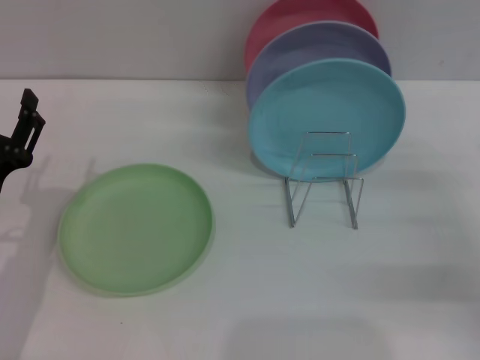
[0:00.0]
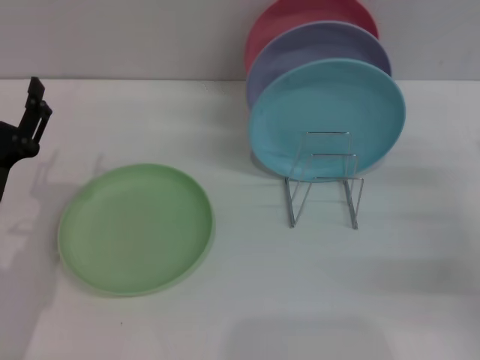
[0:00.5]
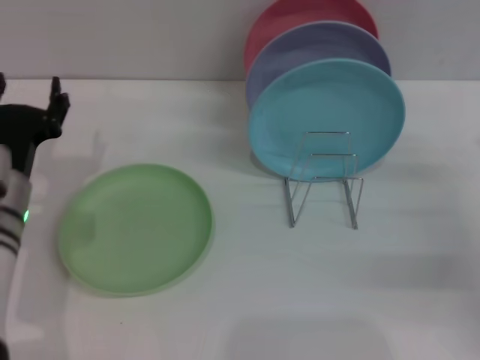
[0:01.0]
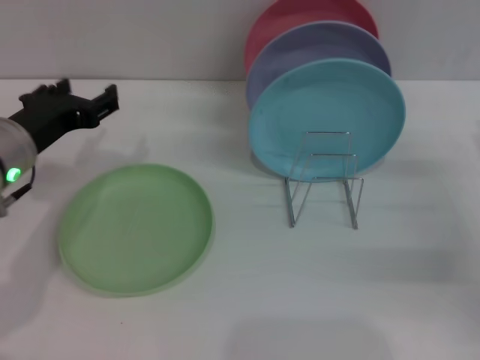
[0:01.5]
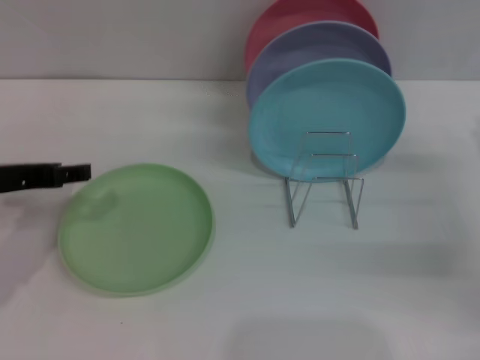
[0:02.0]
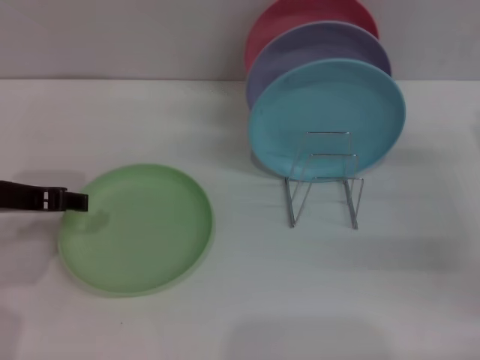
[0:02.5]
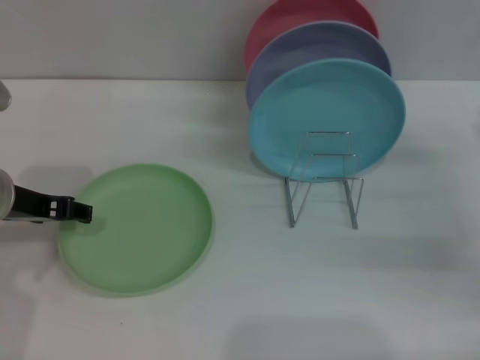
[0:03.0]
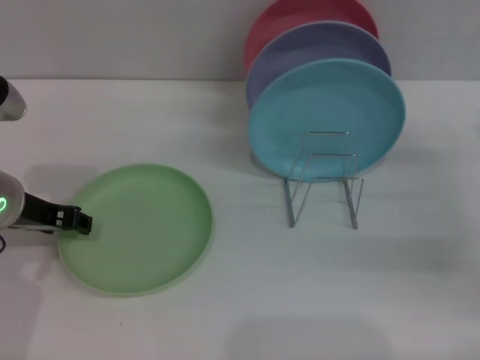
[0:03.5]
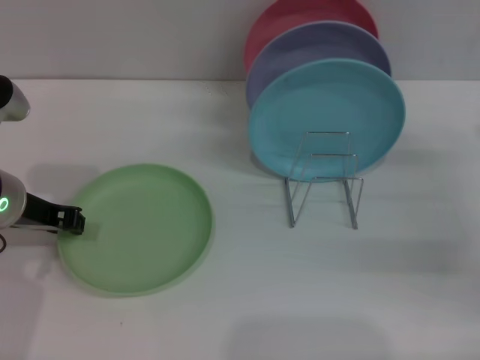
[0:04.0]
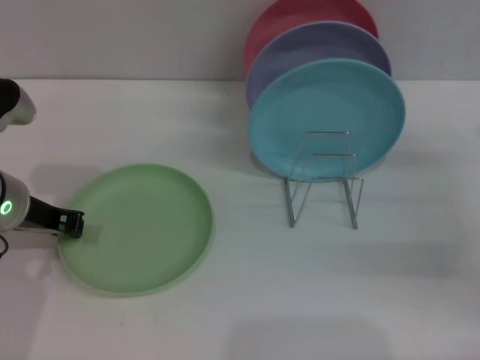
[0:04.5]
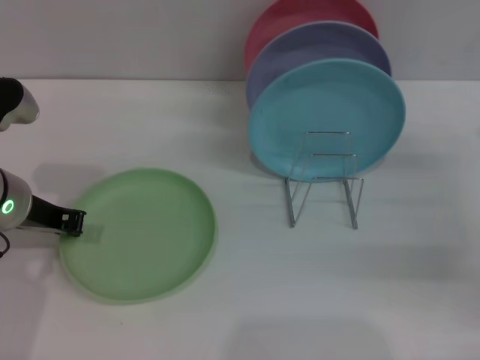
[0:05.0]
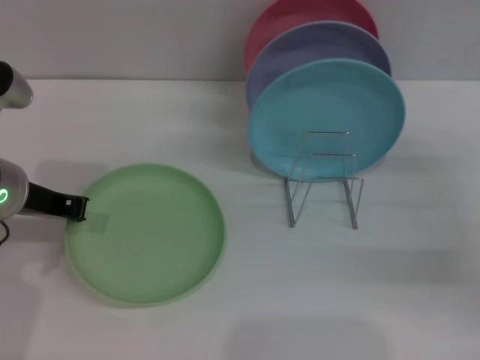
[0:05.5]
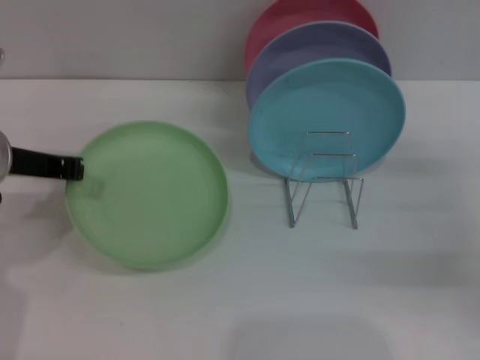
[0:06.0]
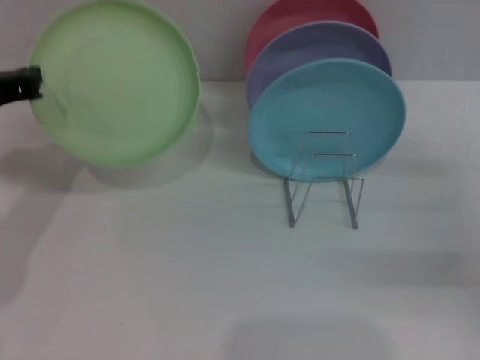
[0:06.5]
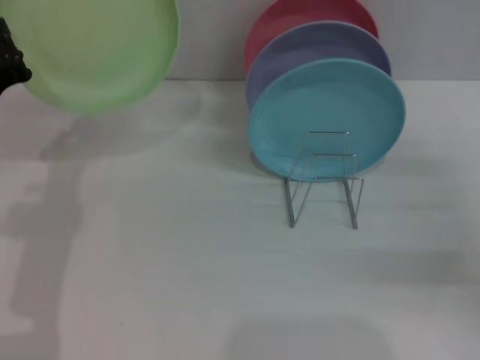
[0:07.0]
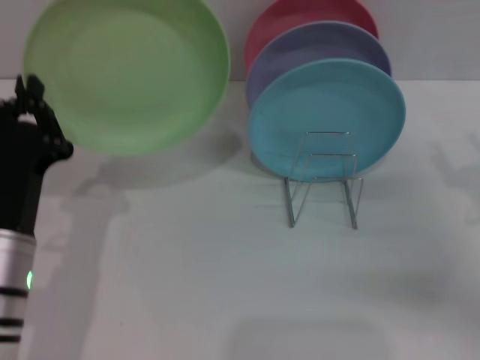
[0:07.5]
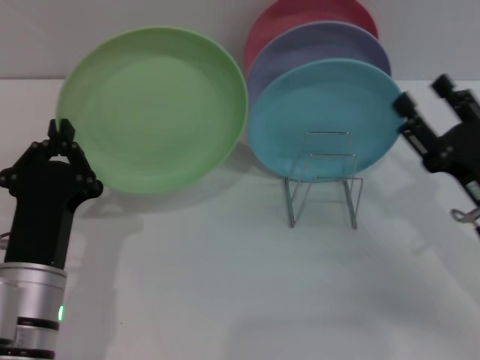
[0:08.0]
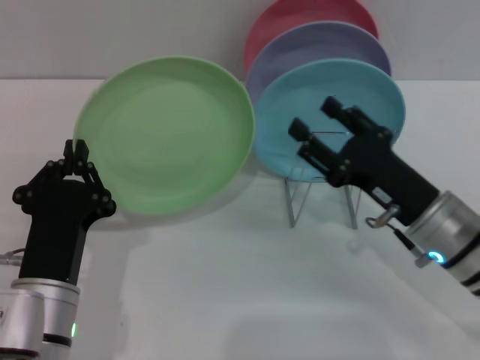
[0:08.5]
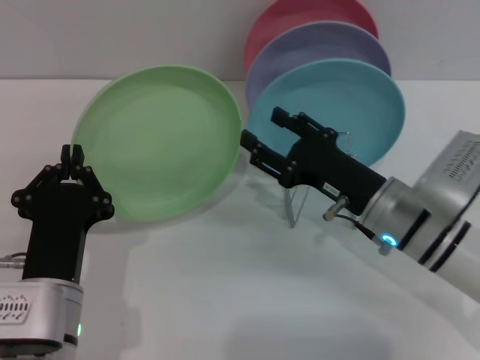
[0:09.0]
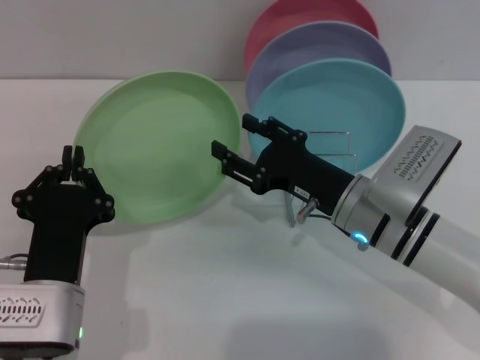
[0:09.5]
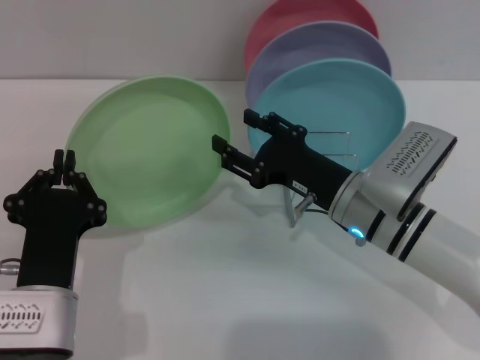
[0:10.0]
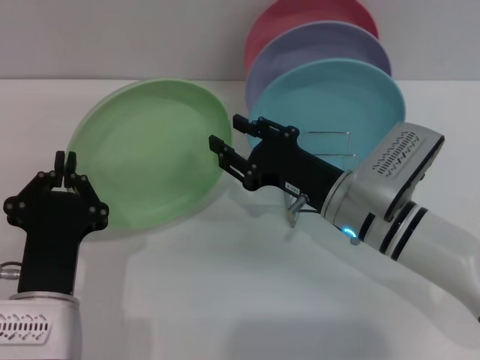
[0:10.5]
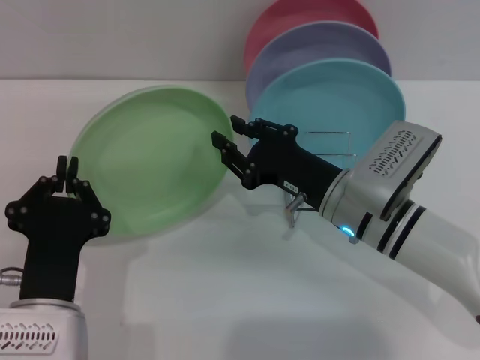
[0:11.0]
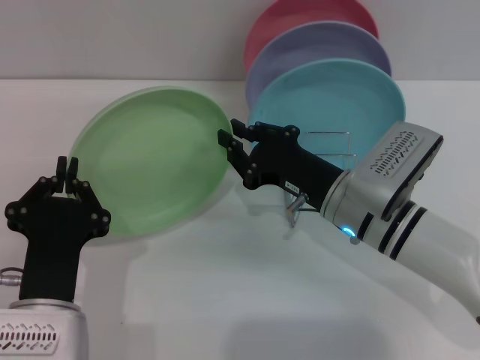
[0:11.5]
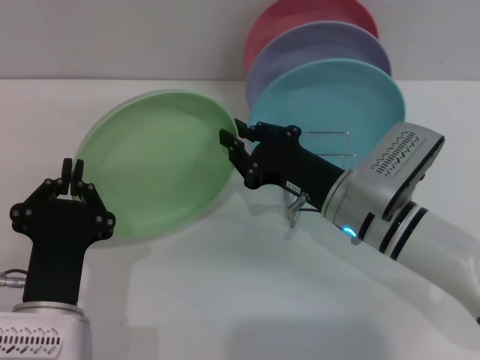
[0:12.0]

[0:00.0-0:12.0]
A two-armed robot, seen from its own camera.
Task of the whole recording: Grip the plate with one hand, pass it to the other, then set it on the shelf.
Step, 0:00.0 to 0:06.0: Pick up the plate with the left gripper.
0:00.0 to 0:02.0: The left gripper moves upward, roughly 10 cm.
0:02.0 to 0:04.0: The left gripper moves about 5 cm, and closes its fingers.
0:04.0 to 0:06.0: The left gripper closes its fingers.
0:06.0 to 0:08.0: The left gripper moves backward, downward and to the right, some 20 cm. Meanwhile the right gripper is displaced to the left by some 10 cm.
0:08.0 to 0:10.0: The right gripper travels to the left and forward by about 15 cm.
0:10.0 to 0:12.0: The right gripper closes its fingers.

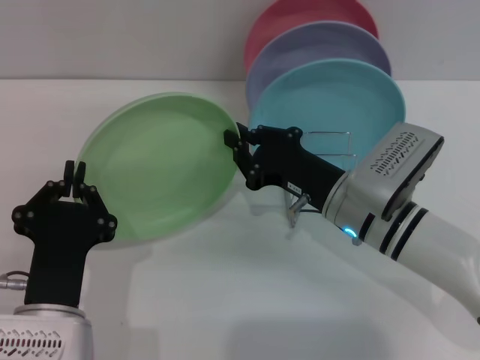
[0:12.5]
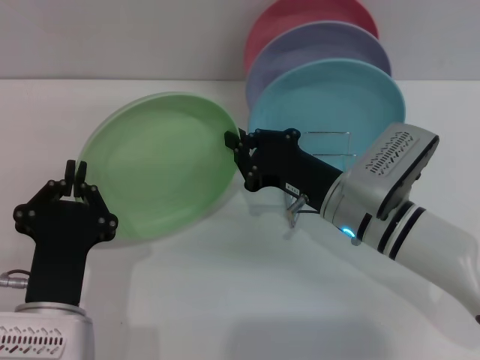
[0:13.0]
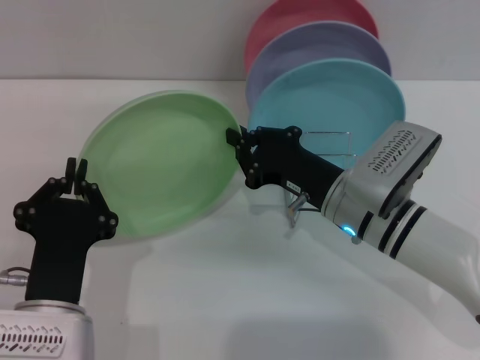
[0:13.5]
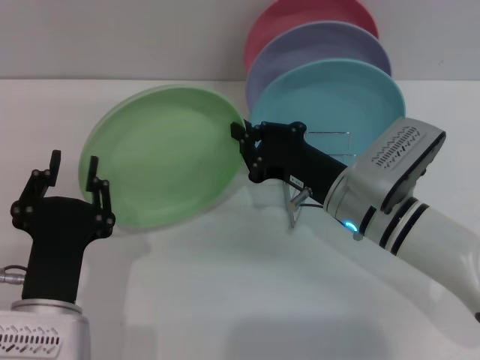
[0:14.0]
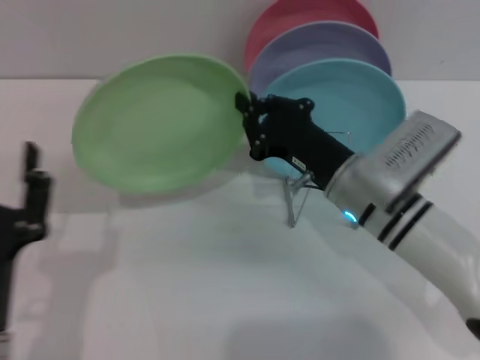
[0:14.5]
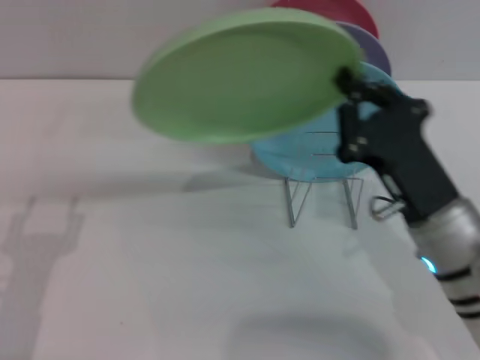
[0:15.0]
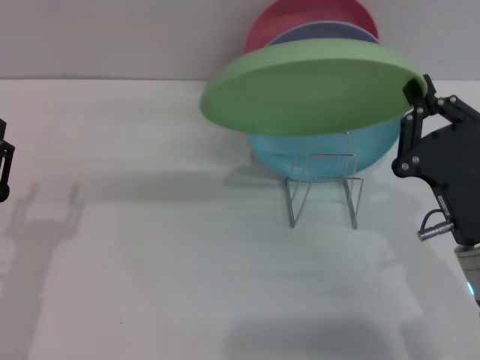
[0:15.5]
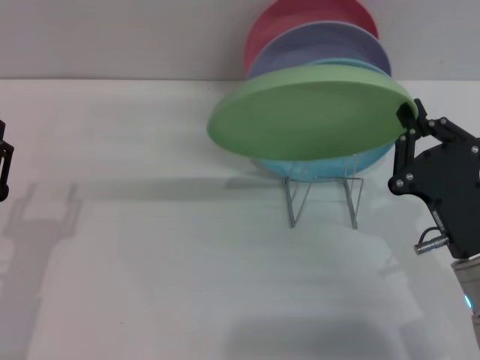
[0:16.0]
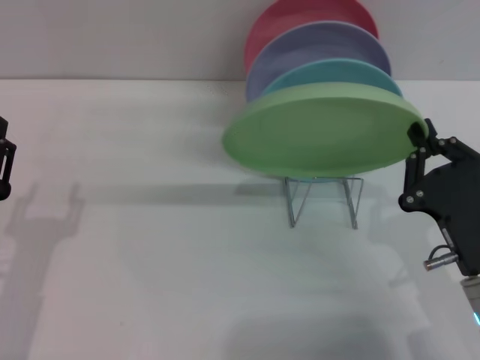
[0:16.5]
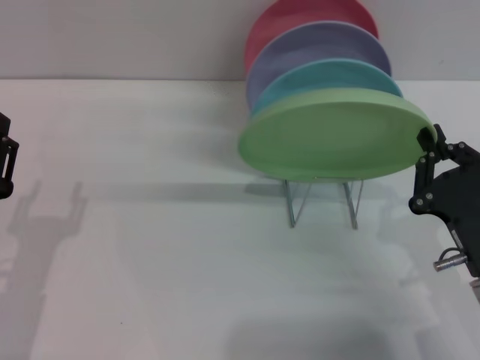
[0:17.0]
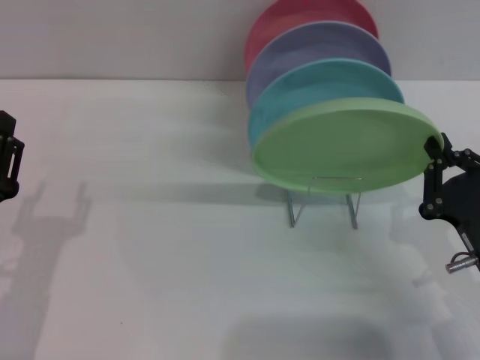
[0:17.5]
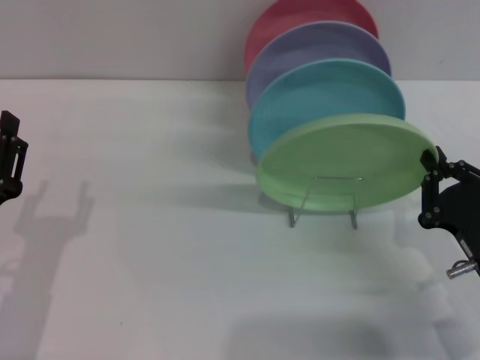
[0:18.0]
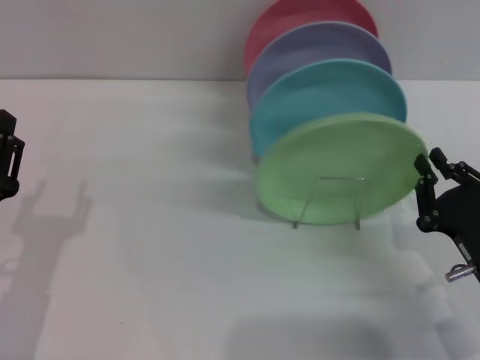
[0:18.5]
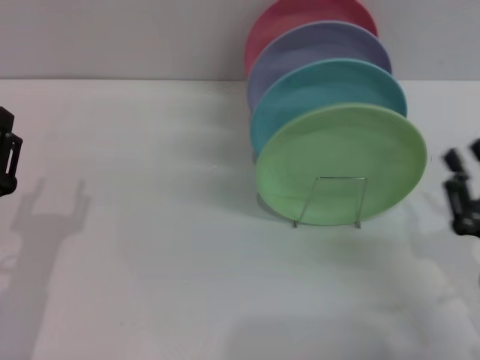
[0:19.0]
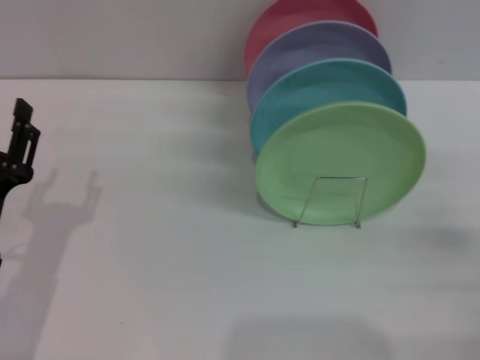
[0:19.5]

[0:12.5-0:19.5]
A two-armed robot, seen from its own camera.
Task of the whole recording: Grip the plate with one hand, pass it to the other, then set it on the shelf.
Step, 0:14.5 to 0:18.5: Place the plate on the shelf with the right gripper.
0:12.5 to 0:14.5: The left gripper moves approximately 5 cm, and opens its fingers.
0:14.5 to 0:16.0: The left gripper shifts approximately 10 cm to the left and forward. The right gripper travels backward and to the right by approximately 15 cm.
0:16.0 to 0:17.5: The grippers make only small movements.
0:17.5 to 0:19.5: The right gripper heads to the right, covering about 10 cm, and opens its fingers.

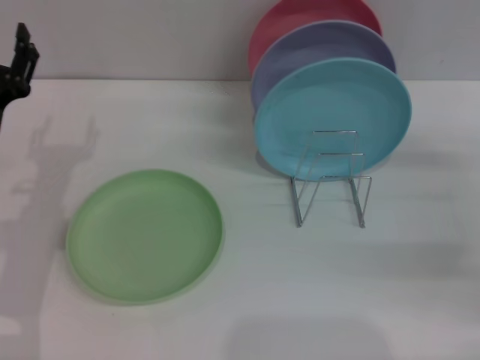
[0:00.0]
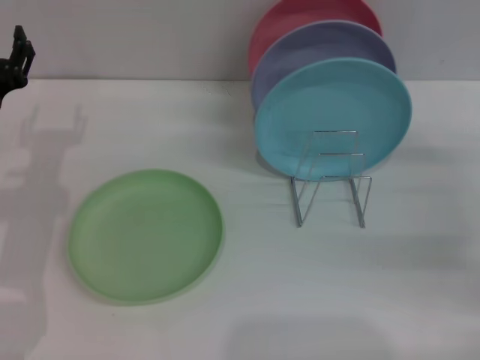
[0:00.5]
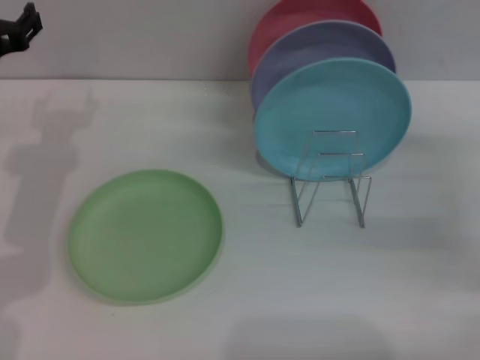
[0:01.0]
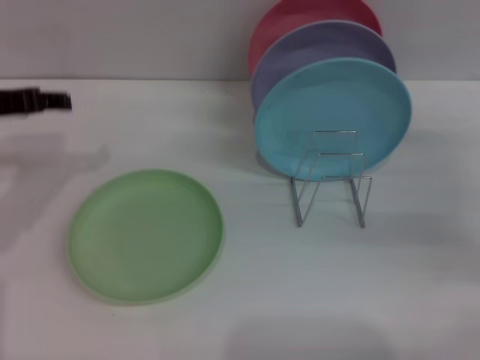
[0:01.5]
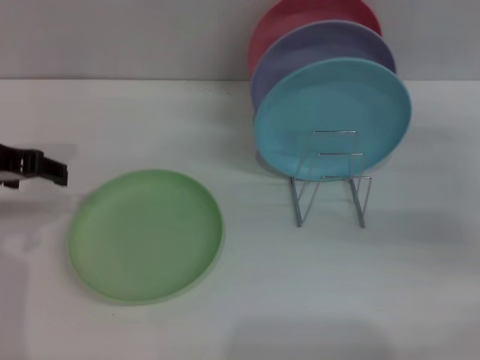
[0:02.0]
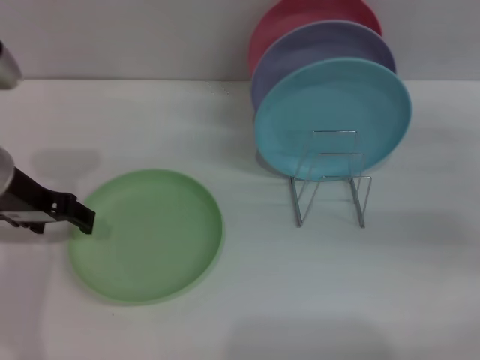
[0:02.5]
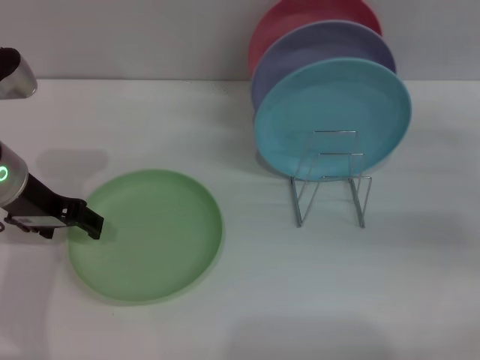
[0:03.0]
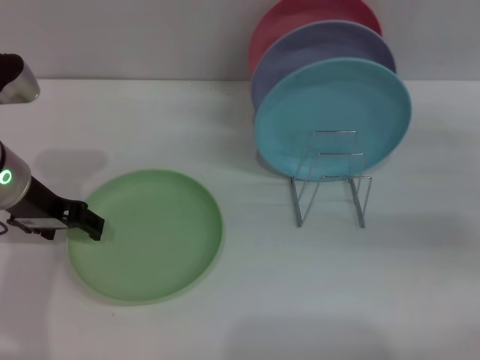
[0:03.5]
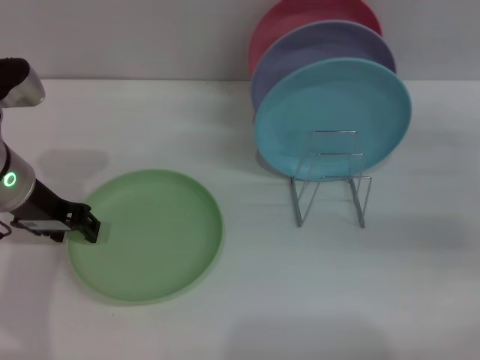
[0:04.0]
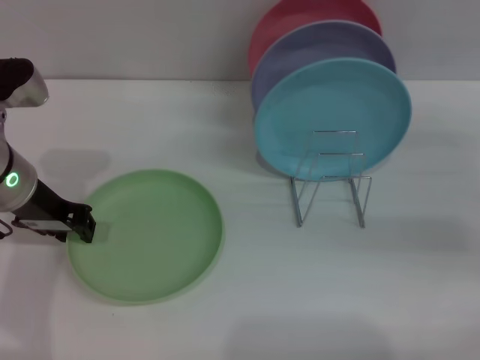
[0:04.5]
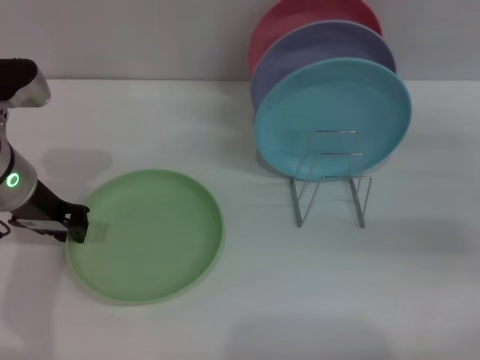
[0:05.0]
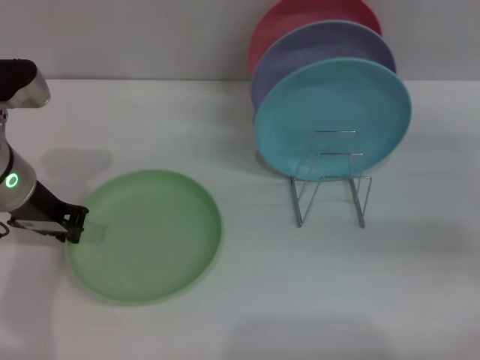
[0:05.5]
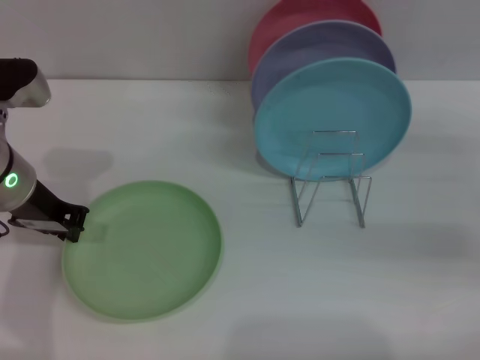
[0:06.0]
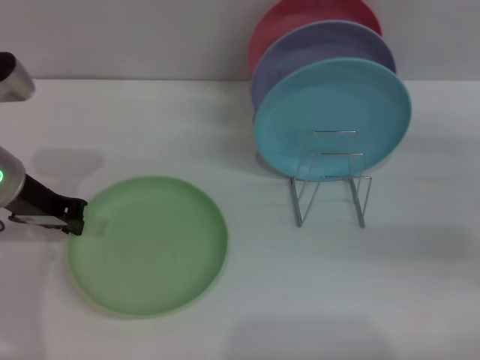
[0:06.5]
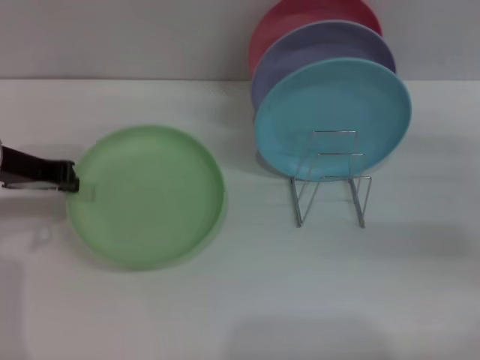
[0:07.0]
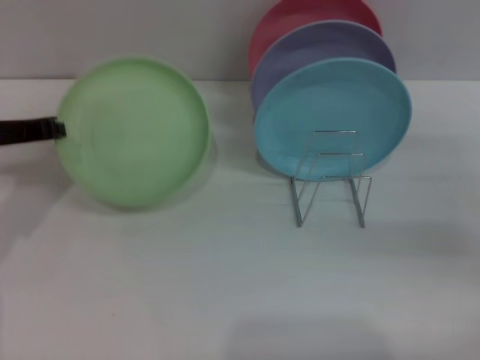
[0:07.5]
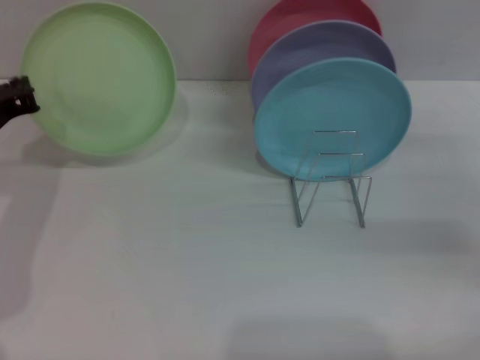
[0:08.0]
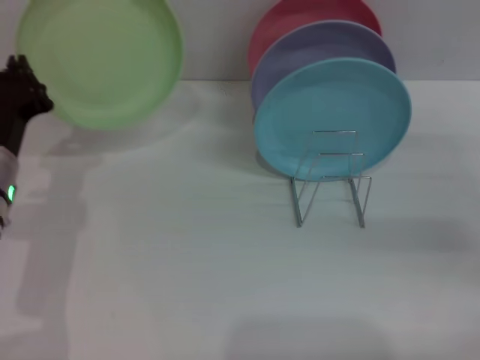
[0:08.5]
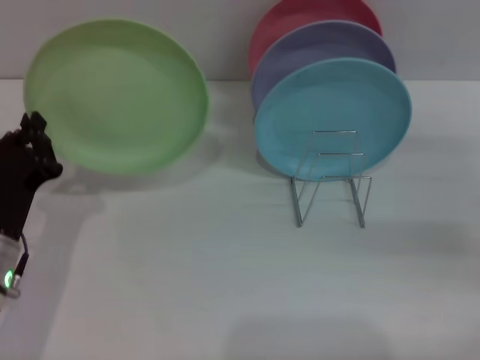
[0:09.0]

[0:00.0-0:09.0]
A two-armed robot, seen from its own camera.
Task of the whole recording: Grip the plate with one hand, pass it to the other, then set it on the shelf.
Step, 0:00.0 to 0:06.5: Pick up the plate with the left gripper.
0:00.0 to 0:02.0: The left gripper travels upward by approximately 10 cm.
0:02.0 to 0:04.5: The left gripper travels downward by some 5 cm, and closes its fingers.
0:04.5 to 0:07.0: The left gripper closes.
0:07.0 to 0:09.0: The left gripper is displaced downward and backward by approximately 15 cm.
